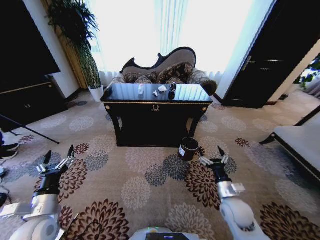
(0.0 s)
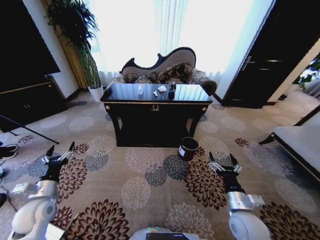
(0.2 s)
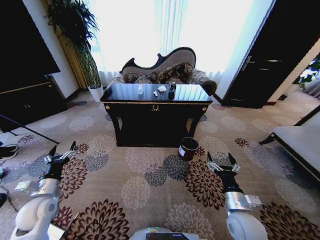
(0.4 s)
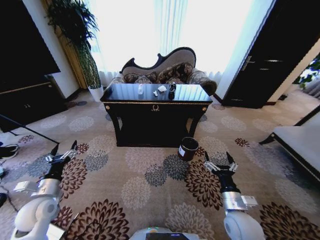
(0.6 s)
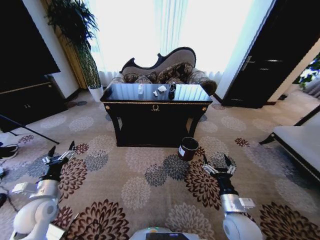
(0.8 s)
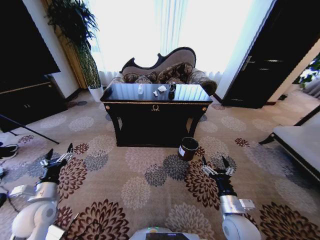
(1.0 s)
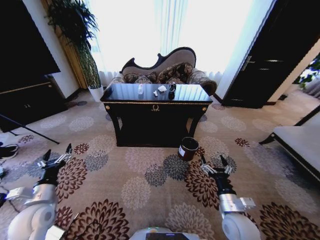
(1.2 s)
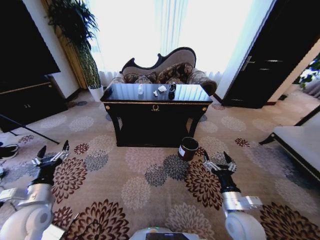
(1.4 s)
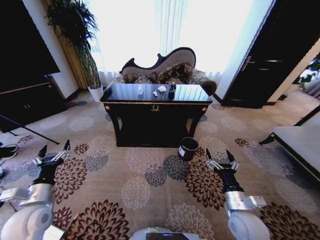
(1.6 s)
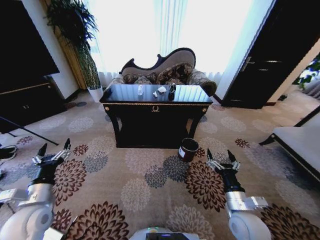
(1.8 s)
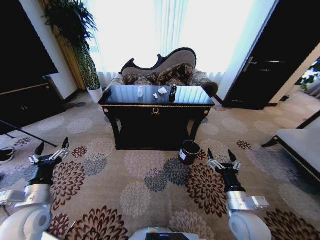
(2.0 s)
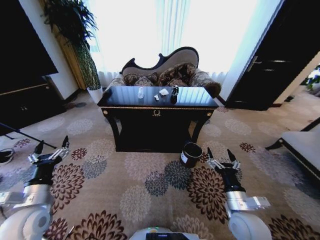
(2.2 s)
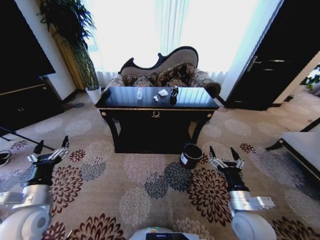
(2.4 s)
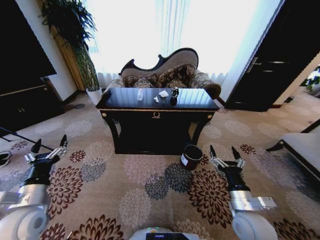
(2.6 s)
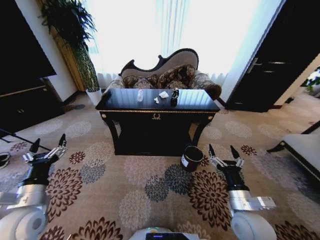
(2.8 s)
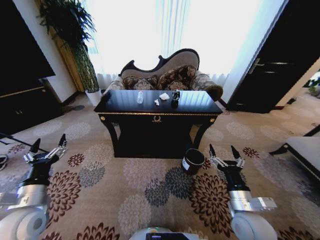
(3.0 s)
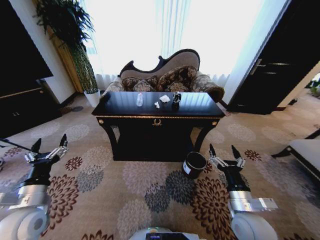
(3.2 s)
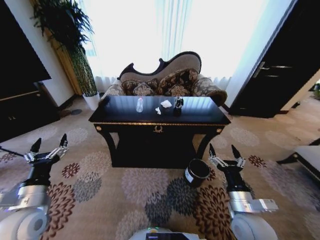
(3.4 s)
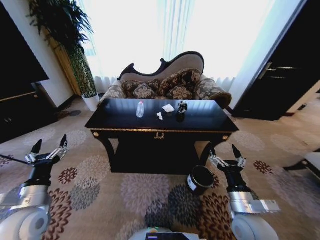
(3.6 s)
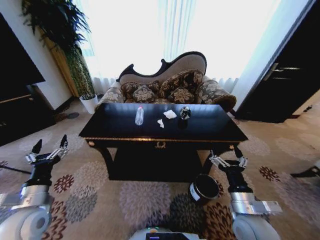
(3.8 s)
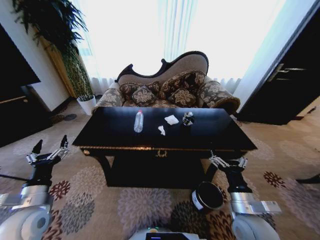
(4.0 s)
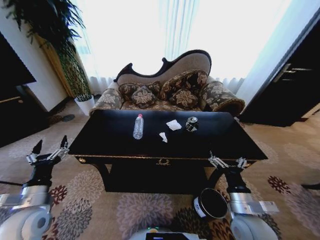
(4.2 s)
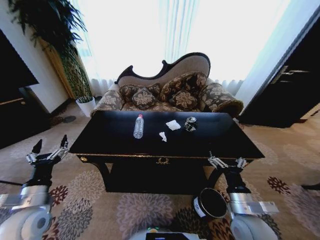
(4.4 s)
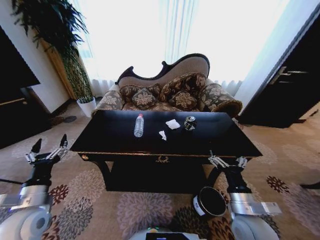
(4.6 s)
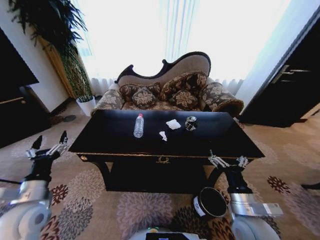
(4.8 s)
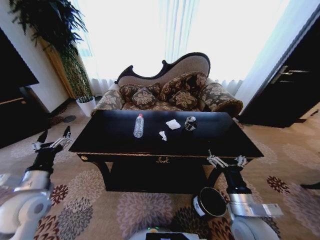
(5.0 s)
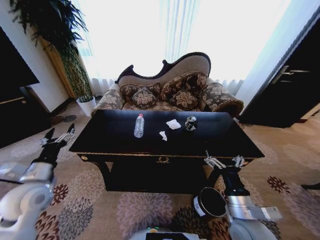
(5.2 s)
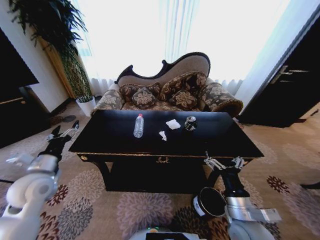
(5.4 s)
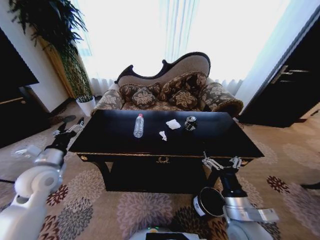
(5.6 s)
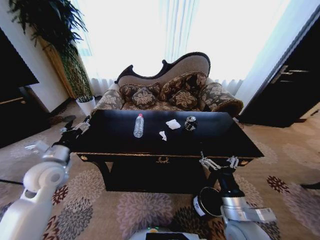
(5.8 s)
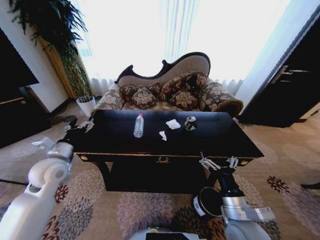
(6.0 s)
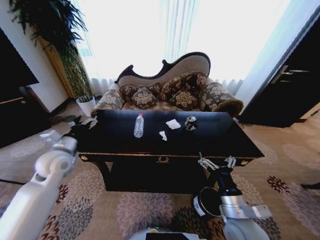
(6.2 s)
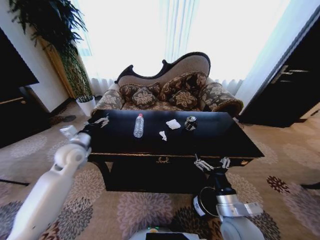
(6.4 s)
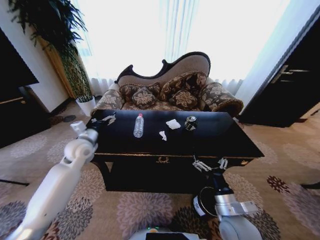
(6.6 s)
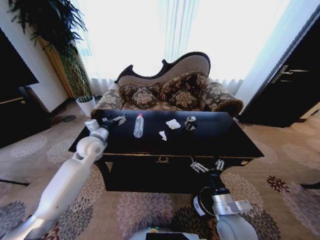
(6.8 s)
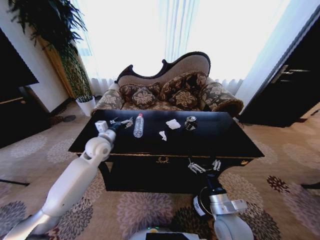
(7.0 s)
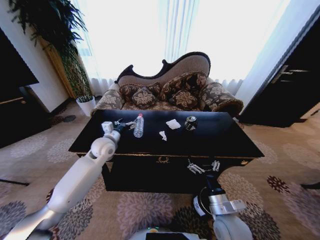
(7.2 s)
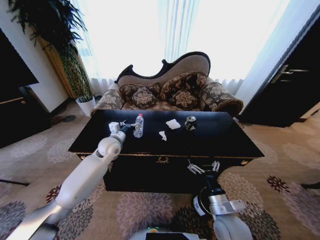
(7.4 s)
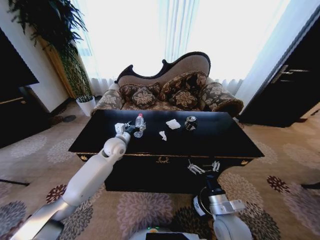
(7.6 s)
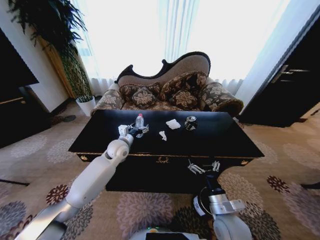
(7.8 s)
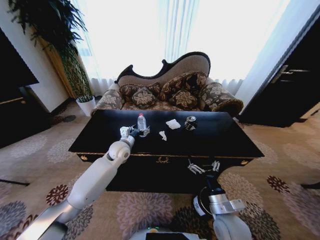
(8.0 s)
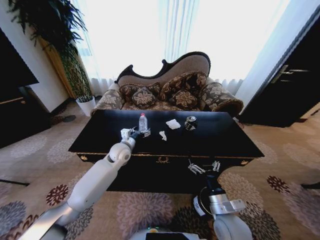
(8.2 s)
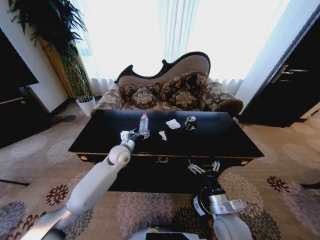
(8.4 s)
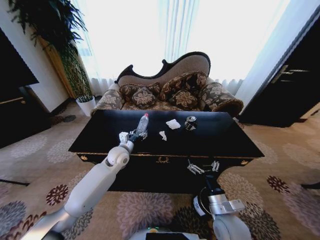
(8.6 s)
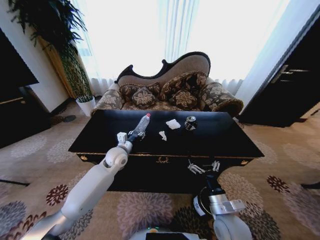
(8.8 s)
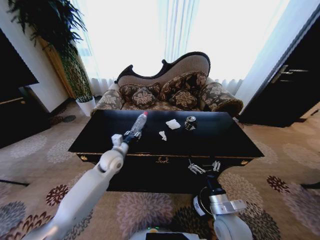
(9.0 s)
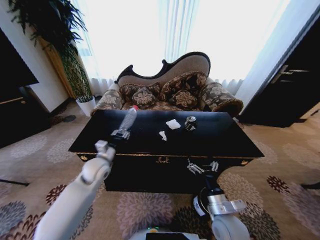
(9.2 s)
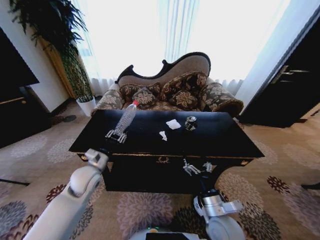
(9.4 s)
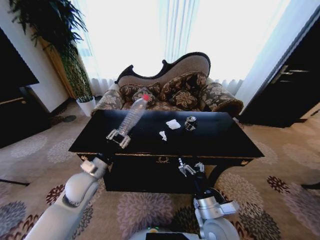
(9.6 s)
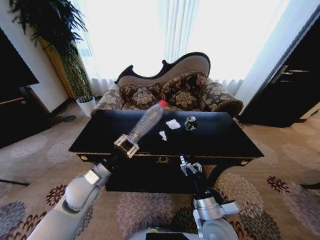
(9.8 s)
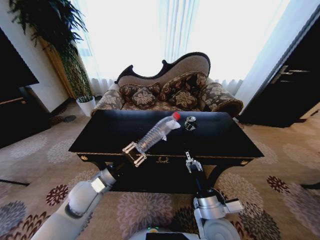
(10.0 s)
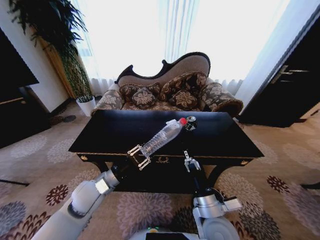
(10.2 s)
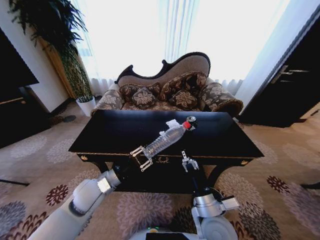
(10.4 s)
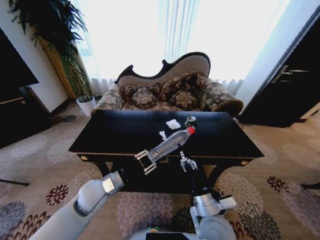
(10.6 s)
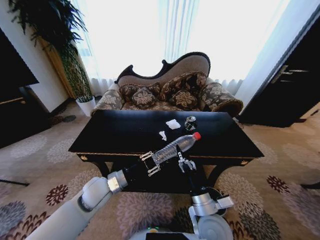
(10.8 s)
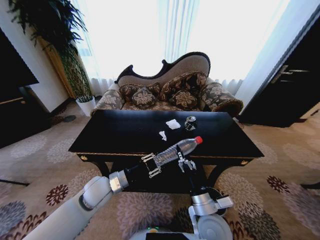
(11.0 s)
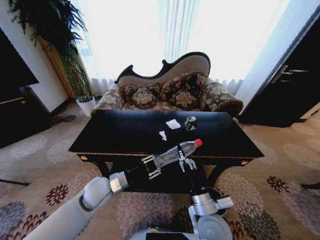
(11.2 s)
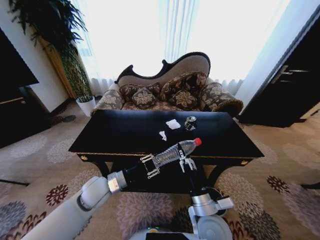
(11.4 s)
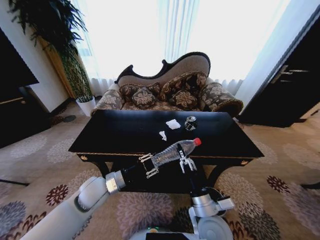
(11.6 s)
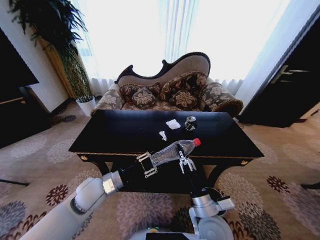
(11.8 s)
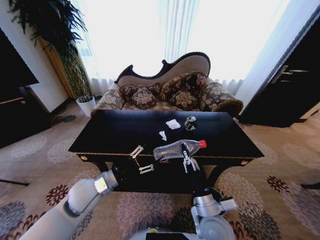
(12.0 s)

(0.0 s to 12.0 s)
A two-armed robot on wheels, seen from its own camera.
Task of the whole recording: Move to the front of the table and place the trash on the table into the trash bin.
4.4 s - 6.0 s: The left gripper moves forward and upward, about 15 cm.
6.0 s - 7.6 s: The left gripper travels to the right and forward by approximately 20 cm. Meanwhile the right gripper is displaced downward by approximately 5 cm.
7.6 s - 9.0 s: The left gripper heads backward, covering some 5 cm, and closes up.
9.0 s - 10.4 s: The left gripper travels backward by about 15 cm. The right gripper heads to the left, covering some 5 cm.
10.4 s - 12.0 s: The right gripper closes up; the left gripper opens up.

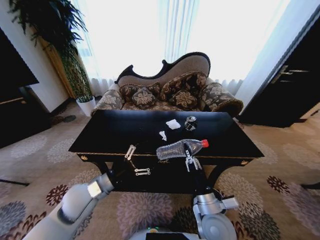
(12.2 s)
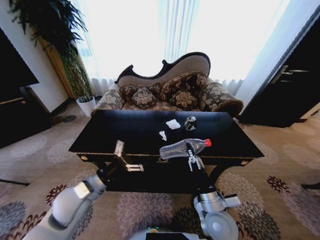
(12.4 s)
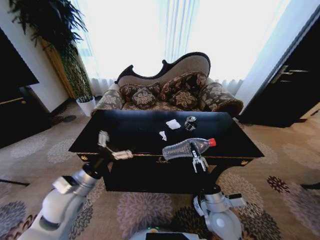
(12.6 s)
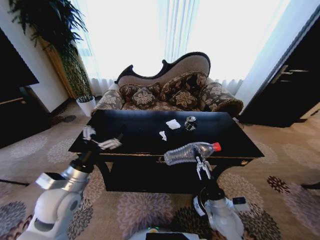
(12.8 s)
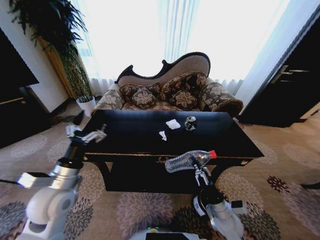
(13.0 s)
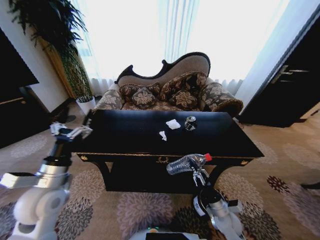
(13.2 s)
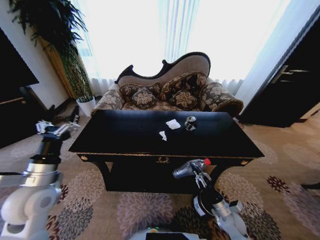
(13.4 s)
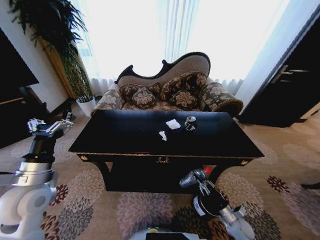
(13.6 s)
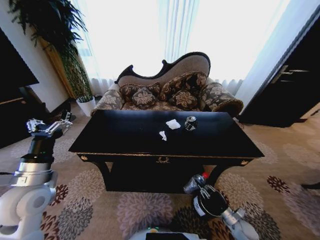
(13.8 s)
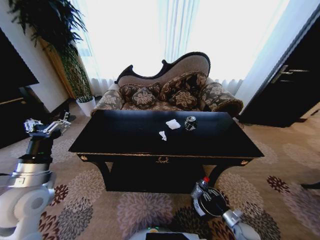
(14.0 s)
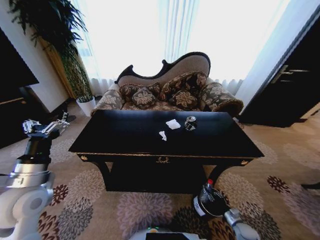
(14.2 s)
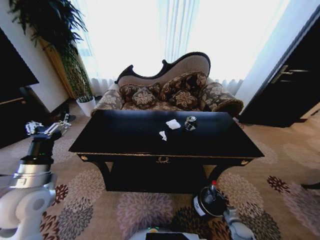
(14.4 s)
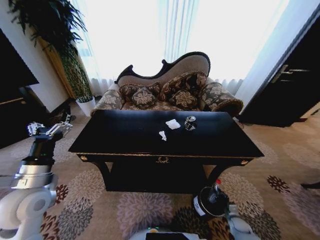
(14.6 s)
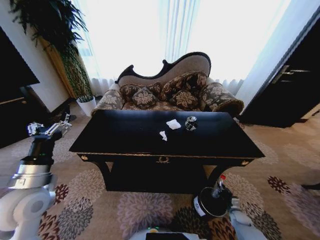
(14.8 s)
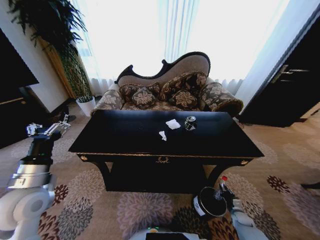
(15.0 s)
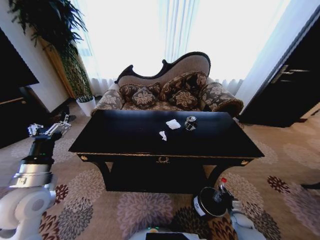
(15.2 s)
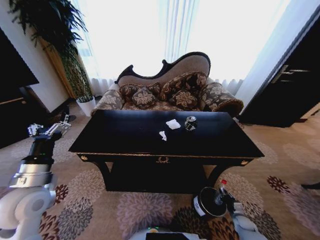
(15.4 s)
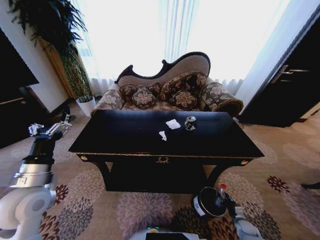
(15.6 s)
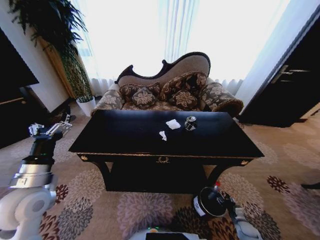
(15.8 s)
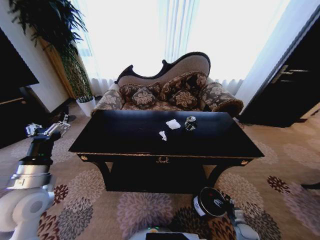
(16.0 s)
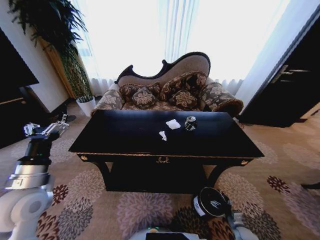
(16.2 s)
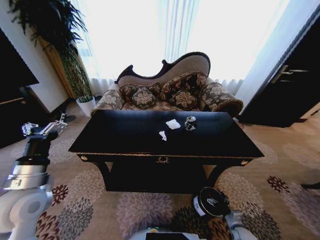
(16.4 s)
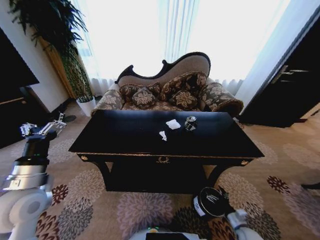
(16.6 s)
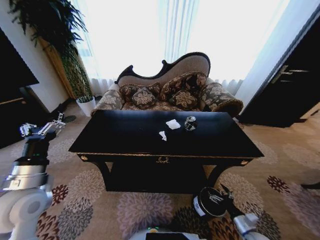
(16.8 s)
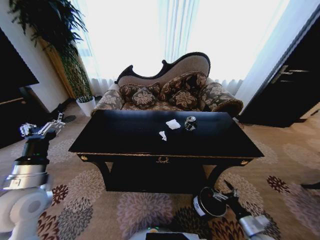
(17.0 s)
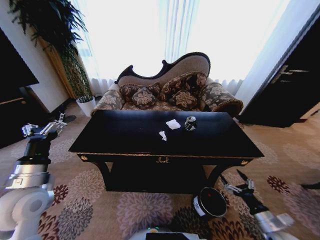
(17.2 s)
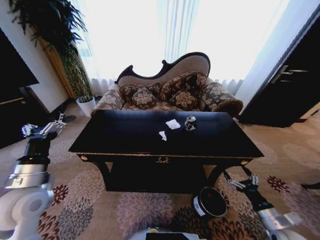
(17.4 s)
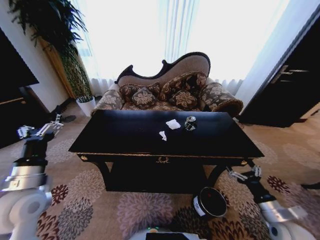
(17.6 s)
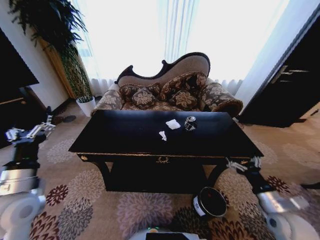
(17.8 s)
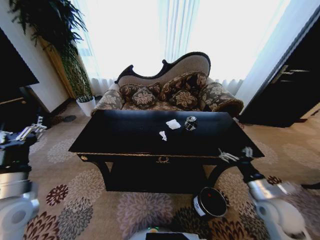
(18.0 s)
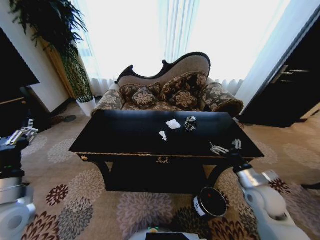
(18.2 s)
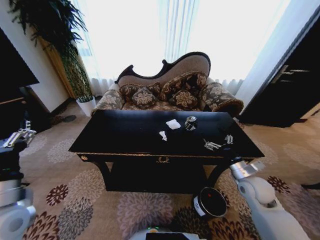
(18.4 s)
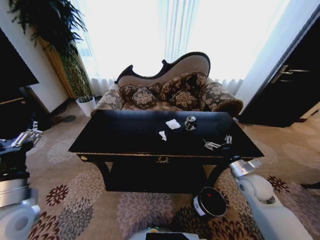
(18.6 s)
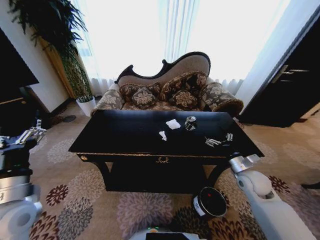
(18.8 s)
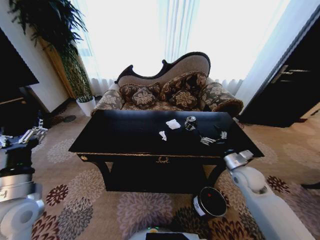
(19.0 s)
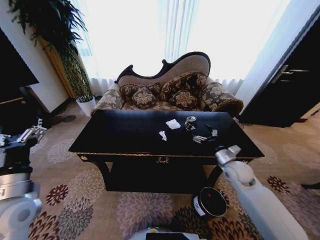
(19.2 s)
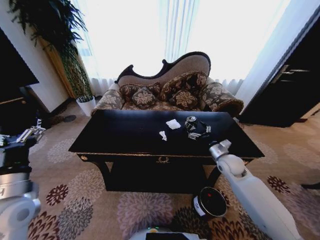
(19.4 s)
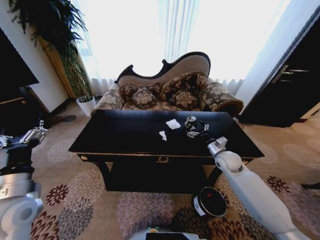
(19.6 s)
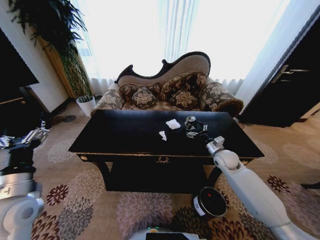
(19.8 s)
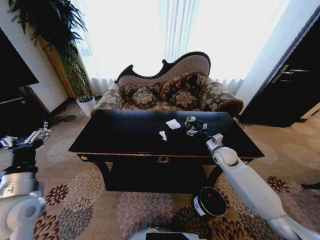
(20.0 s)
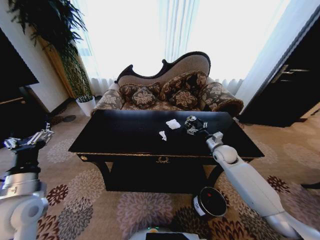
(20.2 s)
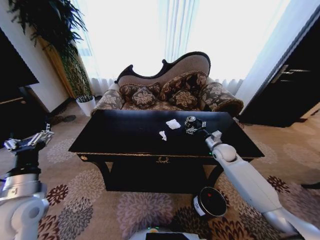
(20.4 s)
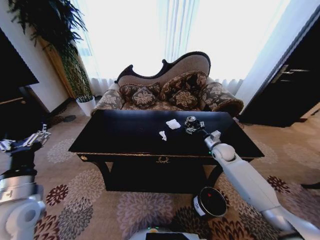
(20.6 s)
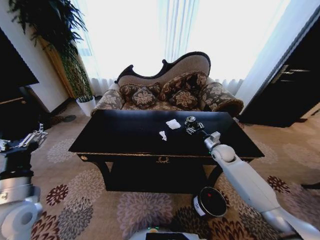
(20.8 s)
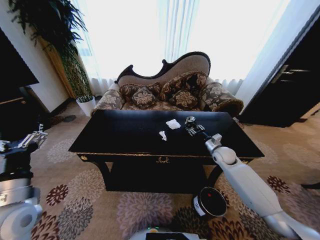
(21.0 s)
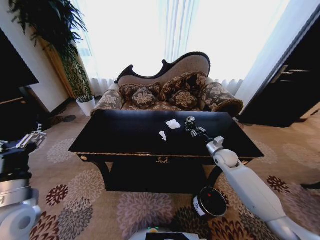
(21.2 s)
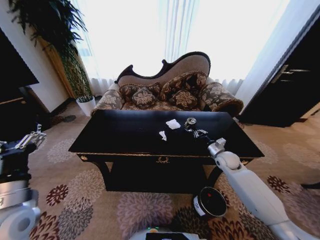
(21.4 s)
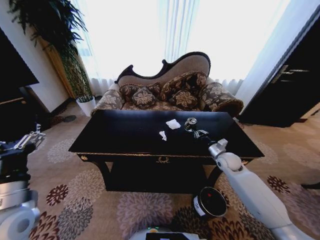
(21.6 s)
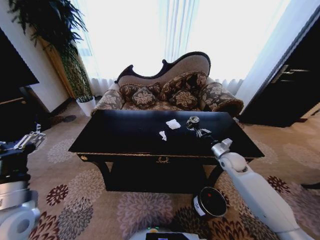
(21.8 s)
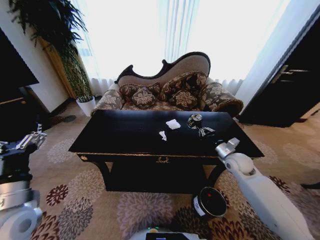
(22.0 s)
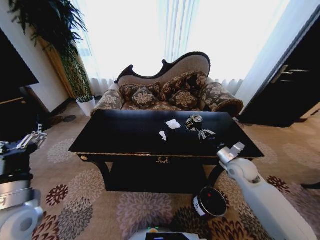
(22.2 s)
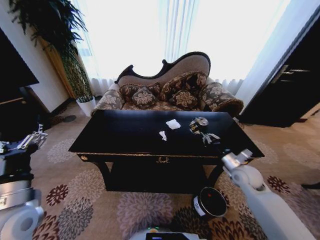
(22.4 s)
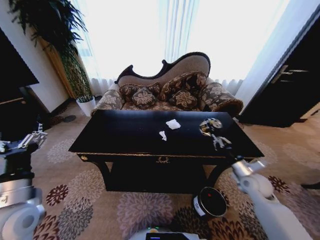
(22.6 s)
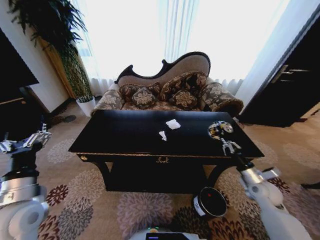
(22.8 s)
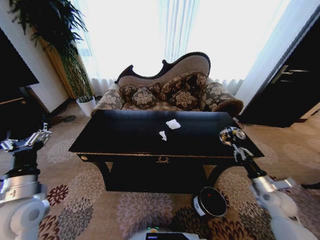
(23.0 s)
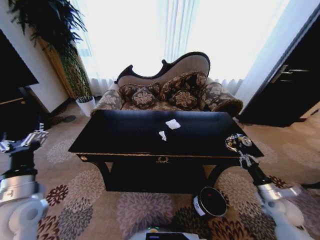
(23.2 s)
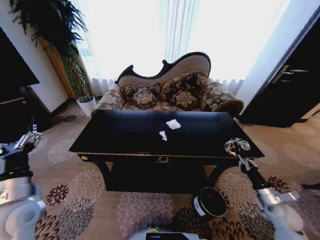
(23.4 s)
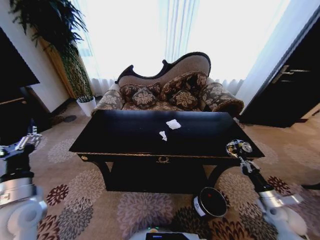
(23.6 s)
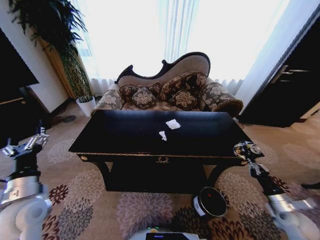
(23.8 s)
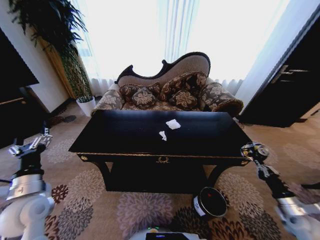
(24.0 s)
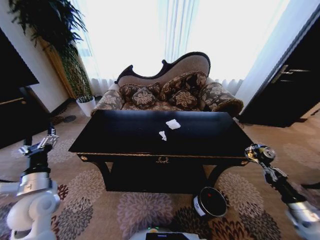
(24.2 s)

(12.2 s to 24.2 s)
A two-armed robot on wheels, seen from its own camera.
Task of the whole recording: Move to the front of the table and place the trash on the table into the trash bin.
12.2 s - 13.8 s: The right gripper moves downward and to the right, approximately 35 cm; the left gripper moves to the left and upward, some 15 cm.
13.8 s - 15.2 s: The right gripper goes about 5 cm downward.
15.2 s - 16.6 s: The right gripper moves upward, backward and to the left, about 10 cm, and opens.
16.6 s - 18.2 s: The right gripper moves upward, roughly 25 cm.
18.2 s - 19.8 s: The right gripper heads forward, covering some 15 cm.
19.8 s - 21.2 s: The right gripper closes.
21.2 s - 22.6 s: The right gripper goes some 15 cm backward.
22.6 s - 24.2 s: The left gripper travels downward by some 5 cm, while the right gripper shifts approximately 20 cm to the right and backward.
